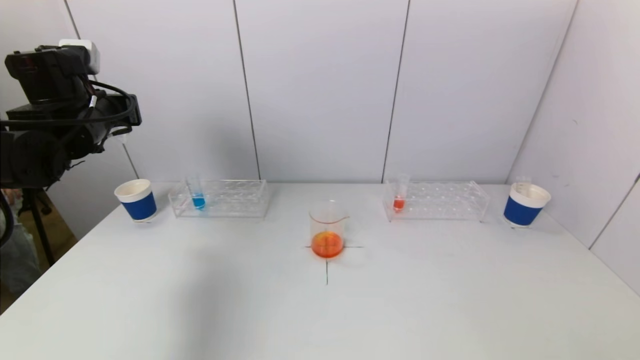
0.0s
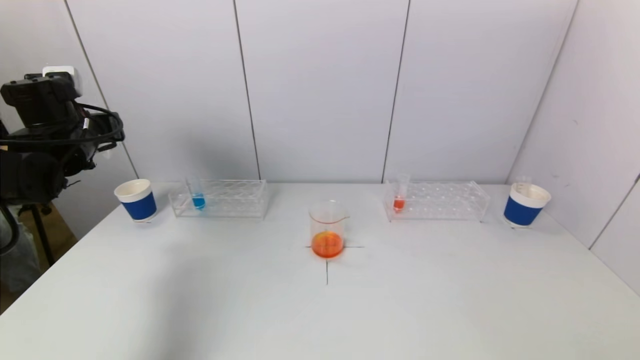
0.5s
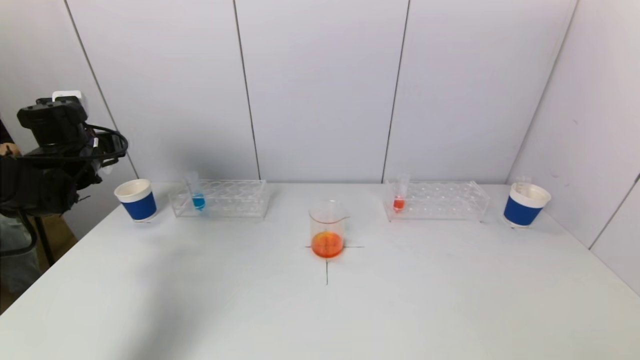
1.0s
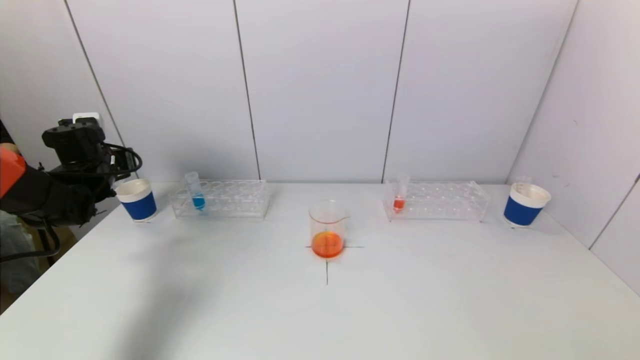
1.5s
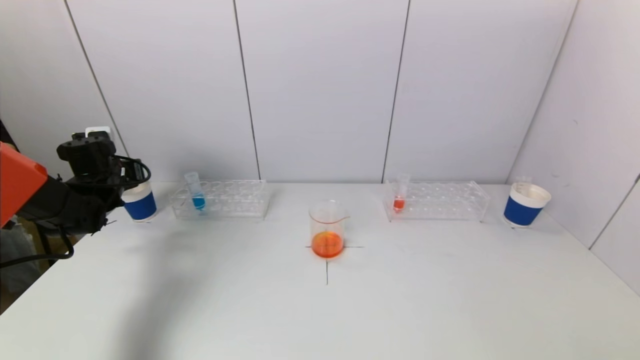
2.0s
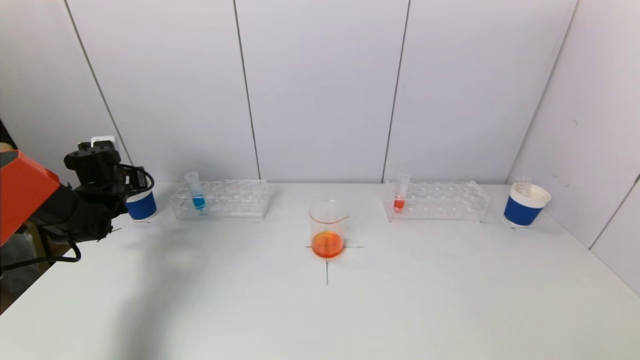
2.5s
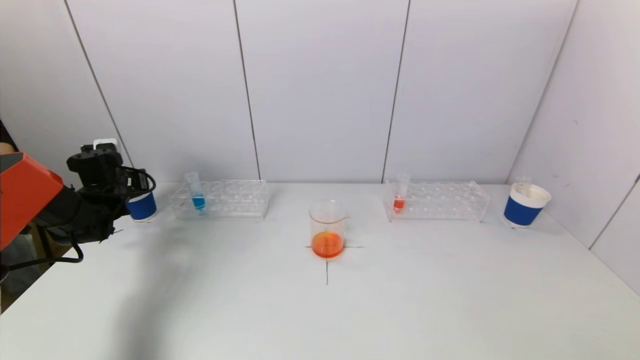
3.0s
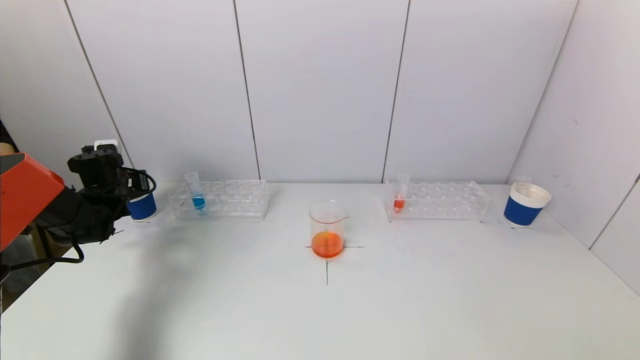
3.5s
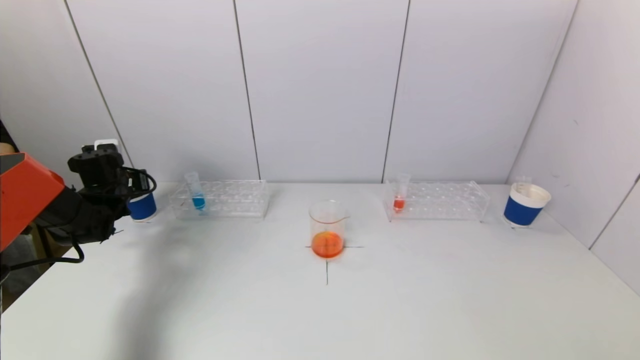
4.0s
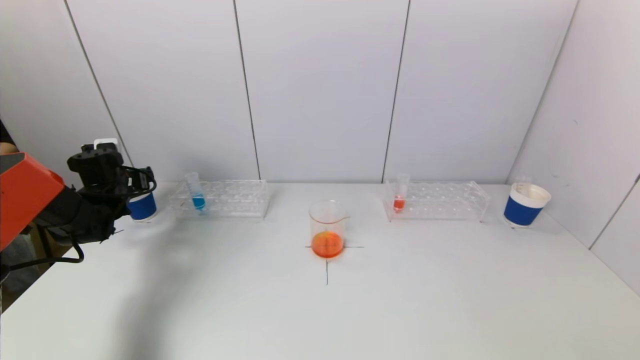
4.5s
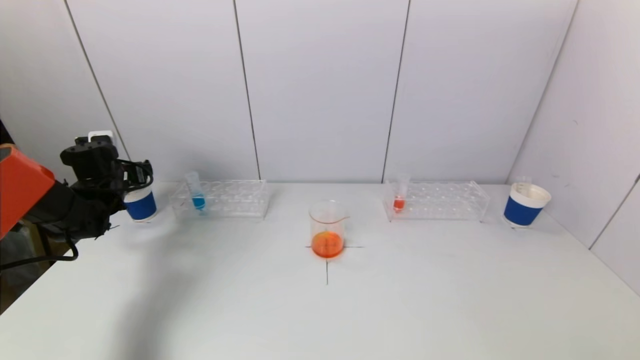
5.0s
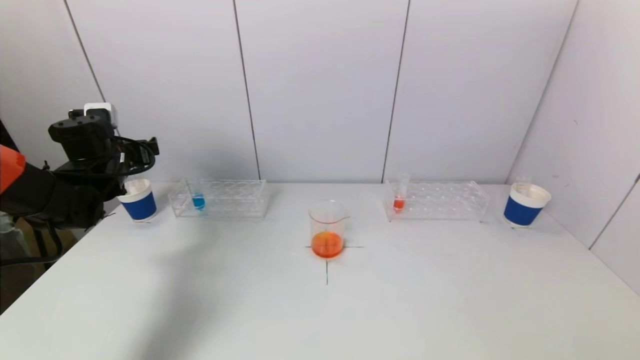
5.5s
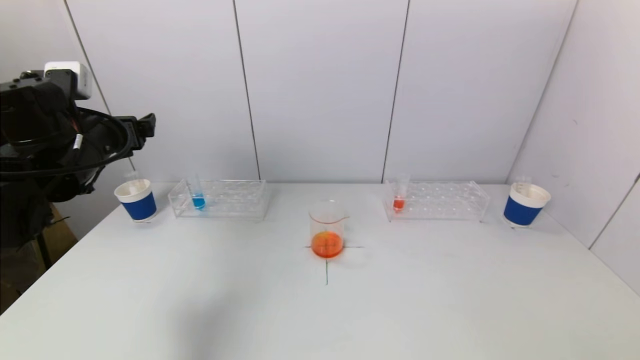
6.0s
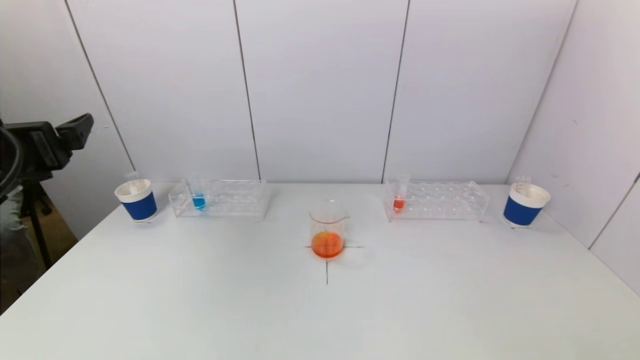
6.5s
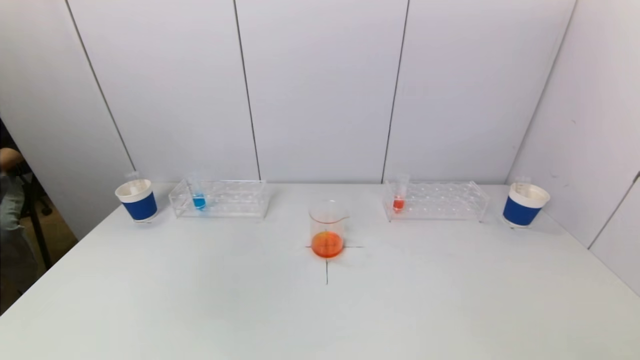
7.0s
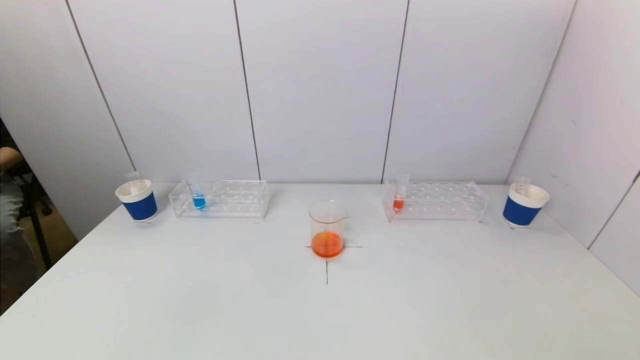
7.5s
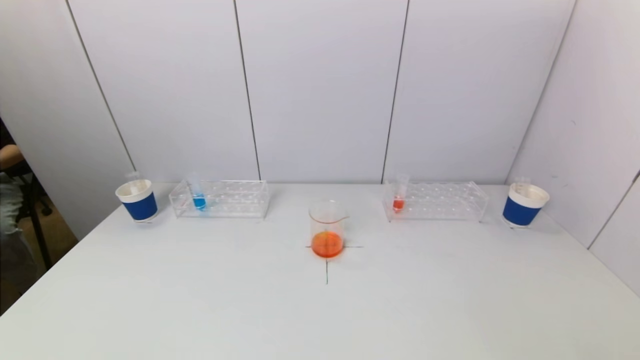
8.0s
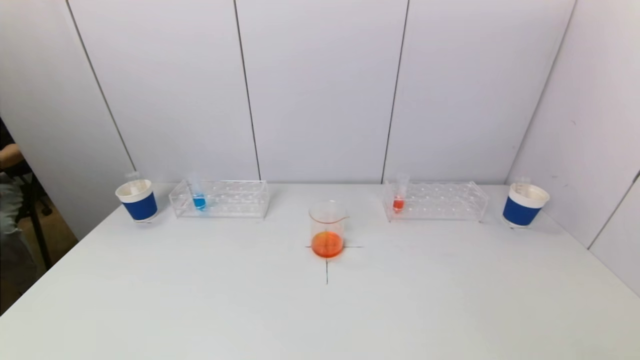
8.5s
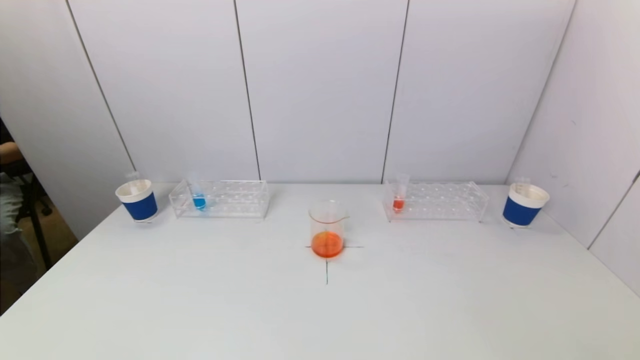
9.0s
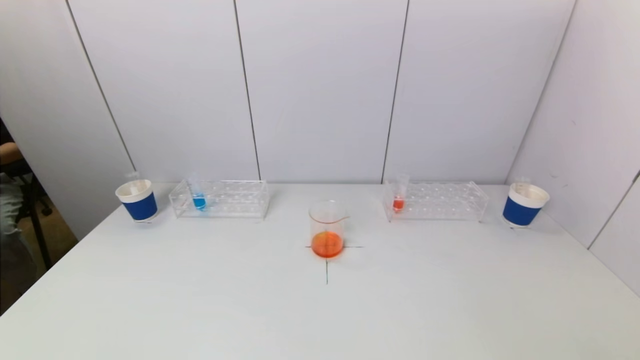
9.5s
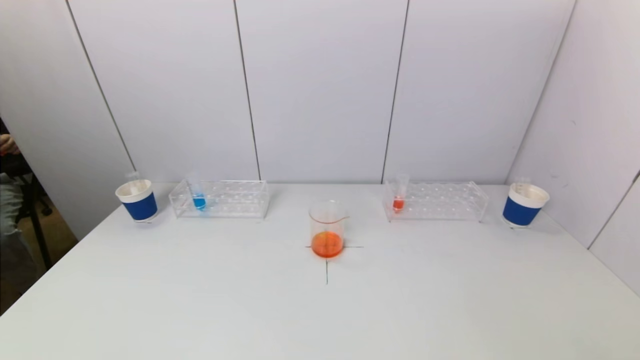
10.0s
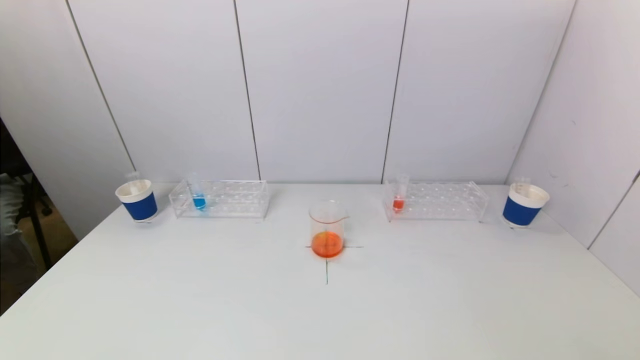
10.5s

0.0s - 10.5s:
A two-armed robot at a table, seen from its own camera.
Task of the whole recording: pick up a test tube with pigment on left test tube rack and a test tube with pigment on right test tube rack by grippers and pour them into the beaker.
Step, 0.0s - 4.5s: Place the test tube into the paper cup with the left gripper.
0.0s - 2.0s: The left gripper heads downward, to the left and forward, covering approximately 15 cm.
2.0s - 4.0s: The grippers move only a little.
4.0s - 6.5s: The left gripper moves backward, upward and to the right, some 30 cm, and opens its fingers.
6.5s - 8.5s: The left gripper moves backward and downward, approximately 30 cm.
